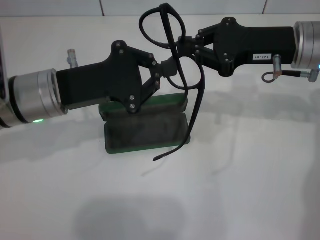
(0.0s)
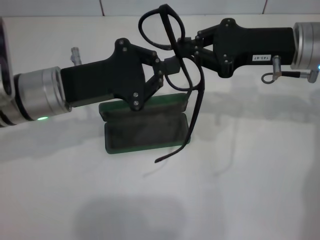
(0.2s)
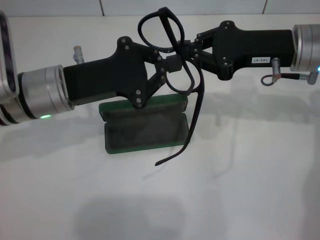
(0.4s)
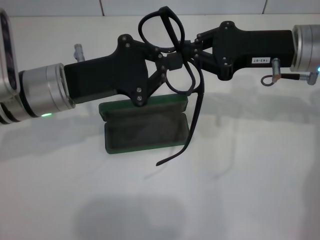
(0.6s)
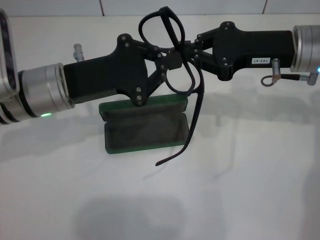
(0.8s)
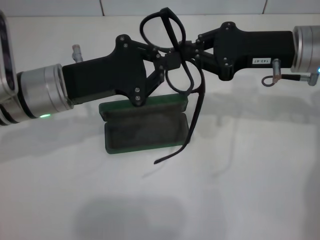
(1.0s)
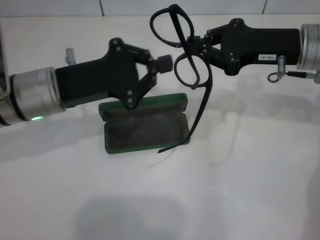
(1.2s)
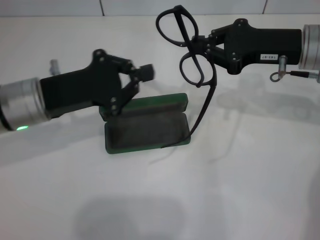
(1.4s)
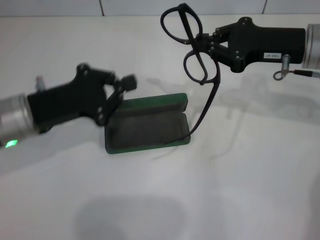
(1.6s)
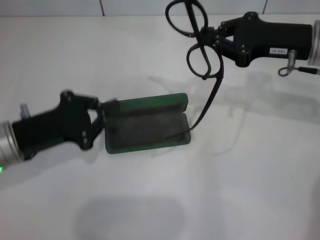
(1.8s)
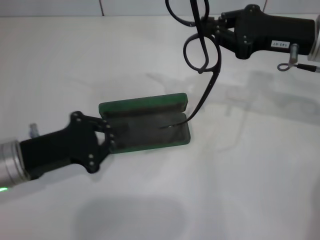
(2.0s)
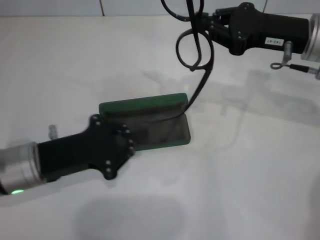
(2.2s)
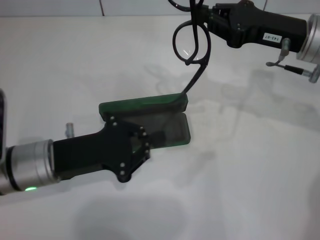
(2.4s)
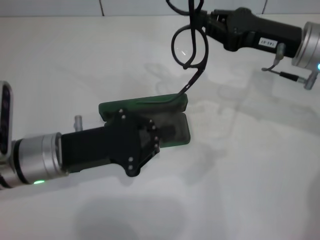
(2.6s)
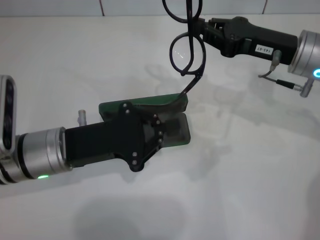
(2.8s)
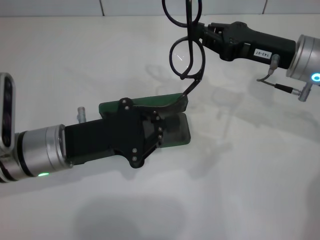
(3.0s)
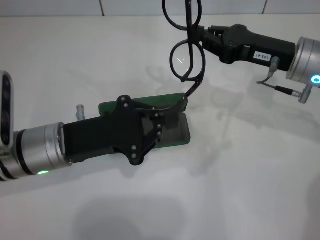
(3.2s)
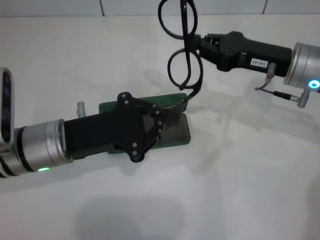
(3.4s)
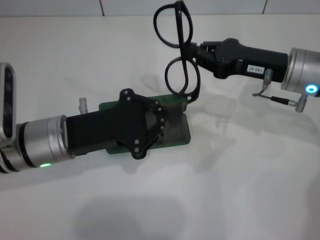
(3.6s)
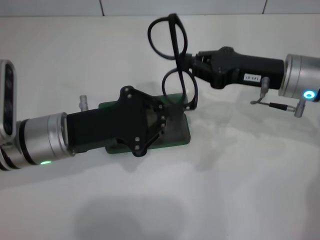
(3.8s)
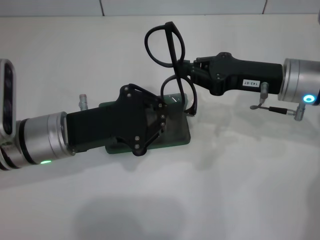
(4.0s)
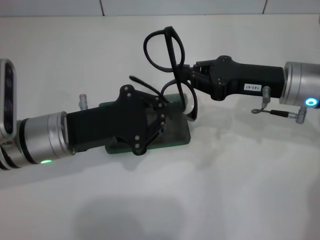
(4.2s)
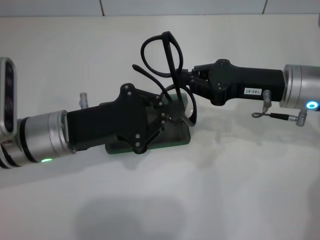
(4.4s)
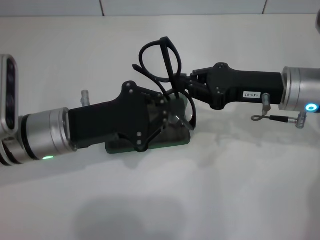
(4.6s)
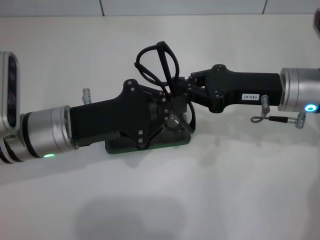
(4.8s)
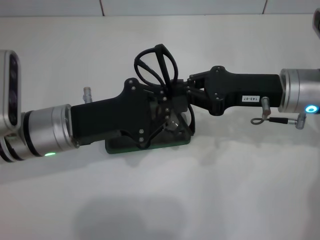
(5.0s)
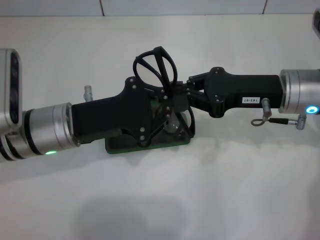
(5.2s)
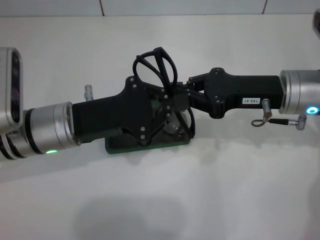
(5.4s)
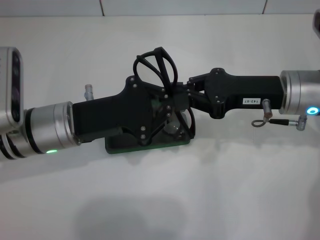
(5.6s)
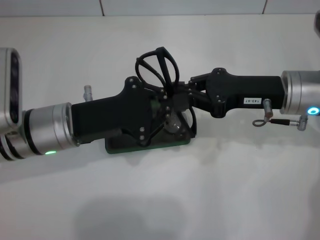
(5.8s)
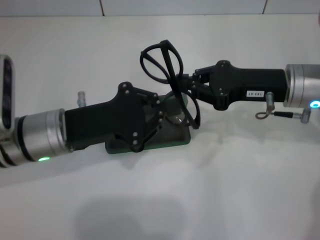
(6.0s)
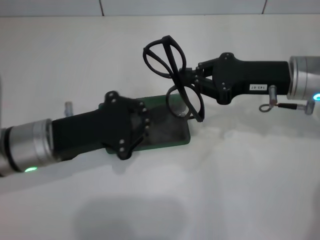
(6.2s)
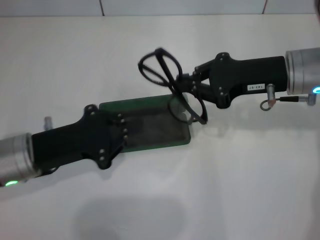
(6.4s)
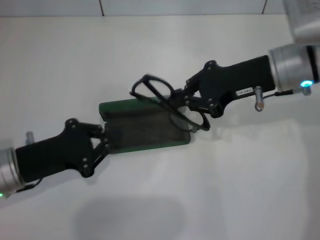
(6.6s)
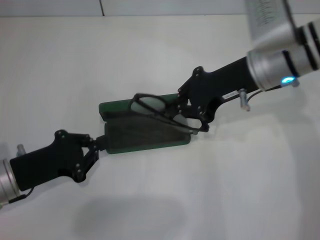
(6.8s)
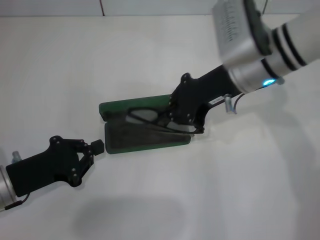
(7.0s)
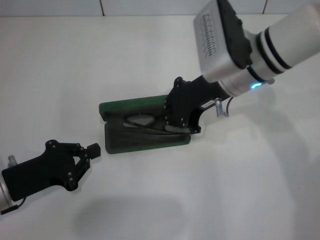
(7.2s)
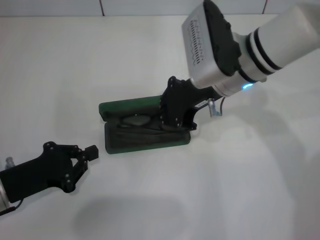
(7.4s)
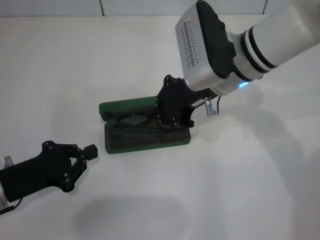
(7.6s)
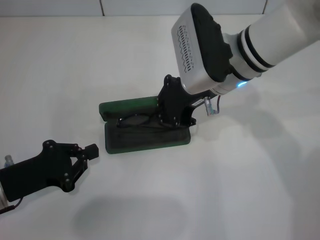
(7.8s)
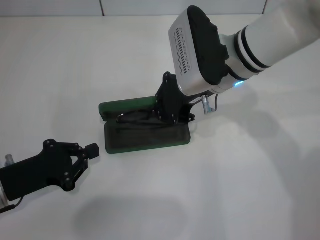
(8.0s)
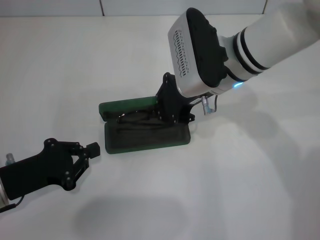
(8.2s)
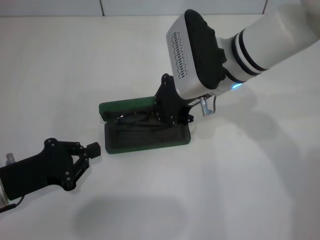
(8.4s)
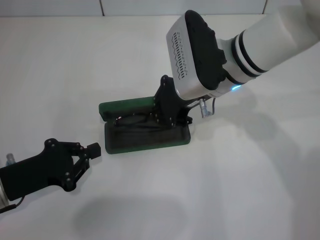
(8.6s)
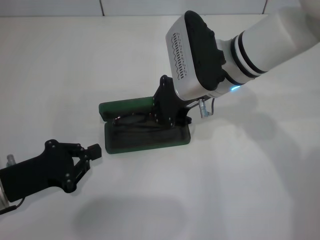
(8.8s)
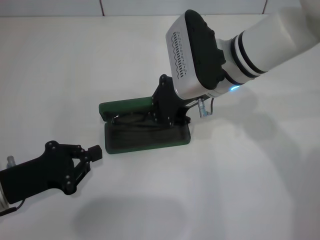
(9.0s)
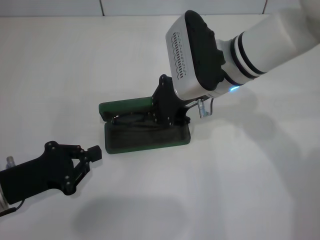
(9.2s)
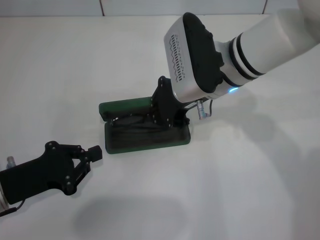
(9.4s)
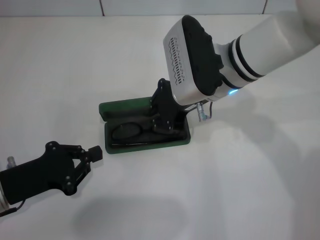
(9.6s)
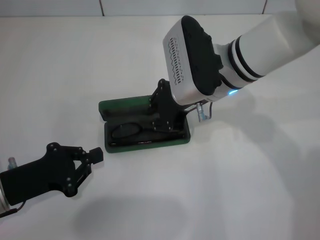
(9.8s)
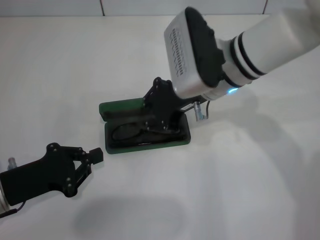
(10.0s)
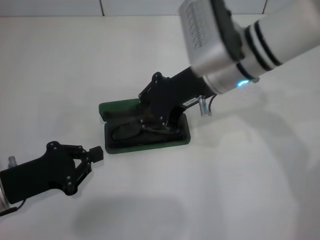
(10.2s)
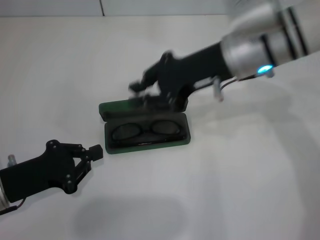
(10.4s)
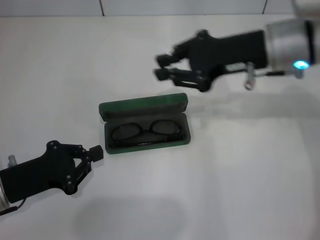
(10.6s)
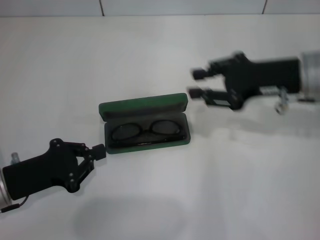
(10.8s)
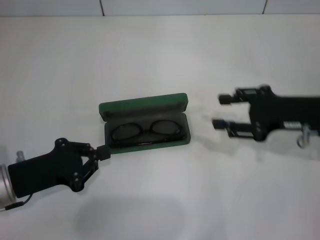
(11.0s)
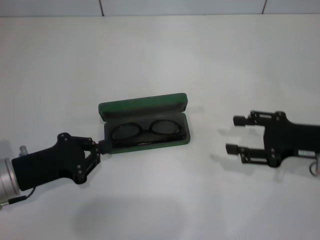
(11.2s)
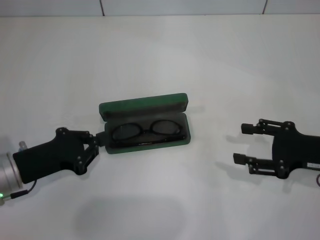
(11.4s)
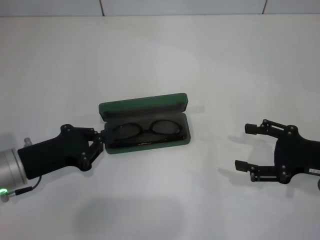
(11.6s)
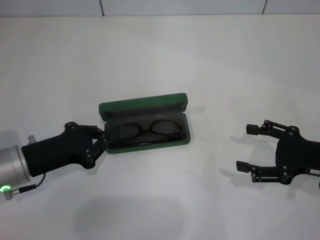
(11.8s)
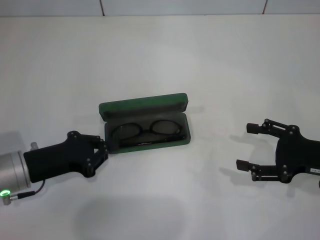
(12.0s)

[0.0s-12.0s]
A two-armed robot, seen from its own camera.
Step, 0.0s to 5.6s: Fold the frame with your left hand.
Step, 5.8s to 9.6s: Put the glasses into the case with your right hand.
0.0s to 1.6s: The left gripper ends up approximately 5 cm from where it was.
1.6s to 3.0s: The left gripper shifts by about 5 cm.
4.4s to 6.0s: The grippers stay close to where they were, moving slightly.
6.0s to 7.6s: The left gripper shifts about 15 cm to the left, backward and downward. The right gripper travels to the left by roughly 10 cm.
7.6s to 9.0s: The grippers make only small movements.
9.0s to 10.4s: The right gripper moves approximately 5 cm.
10.4s to 12.0s: The right gripper is displaced to the right, downward and backward by roughly 25 cm, and opens up.

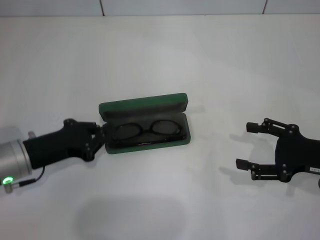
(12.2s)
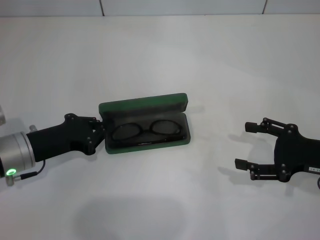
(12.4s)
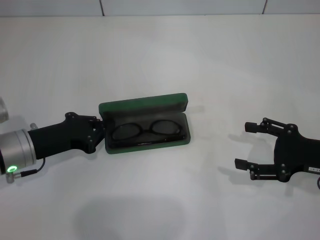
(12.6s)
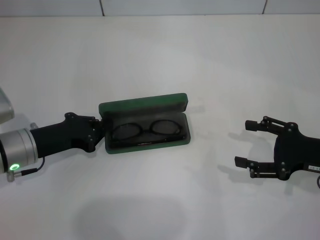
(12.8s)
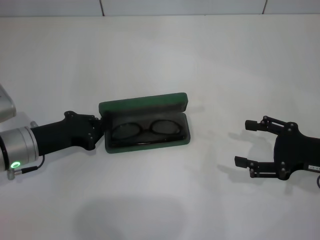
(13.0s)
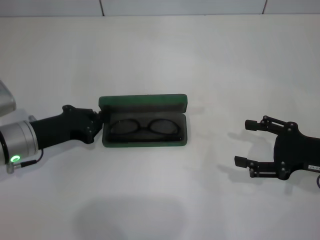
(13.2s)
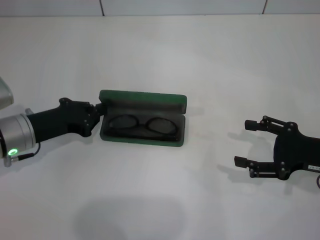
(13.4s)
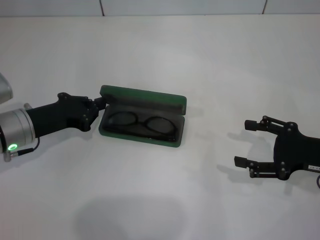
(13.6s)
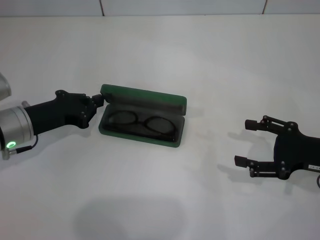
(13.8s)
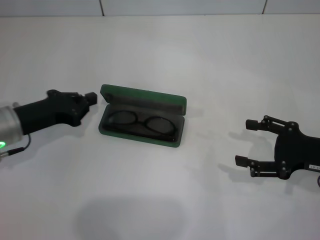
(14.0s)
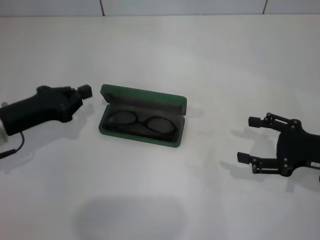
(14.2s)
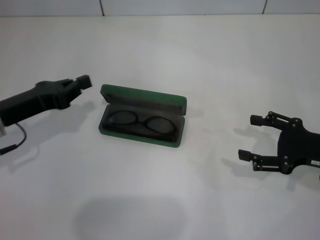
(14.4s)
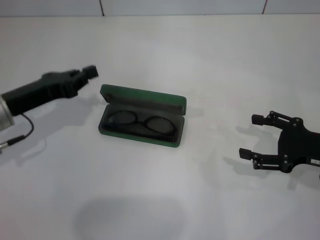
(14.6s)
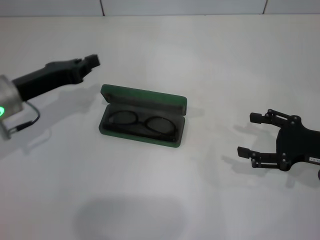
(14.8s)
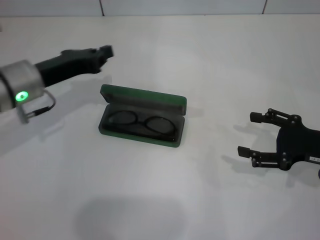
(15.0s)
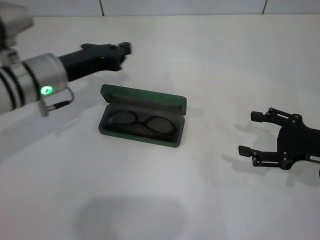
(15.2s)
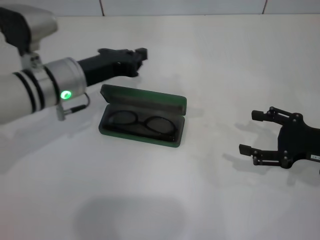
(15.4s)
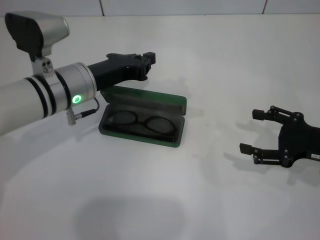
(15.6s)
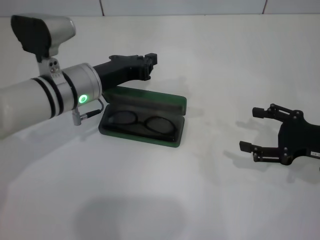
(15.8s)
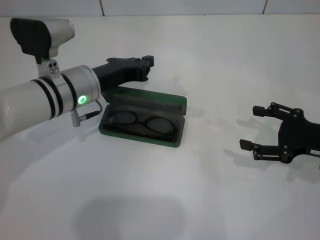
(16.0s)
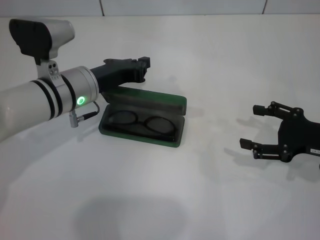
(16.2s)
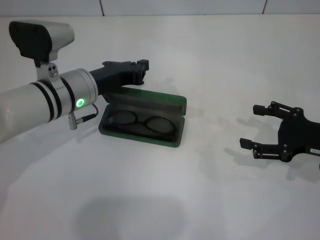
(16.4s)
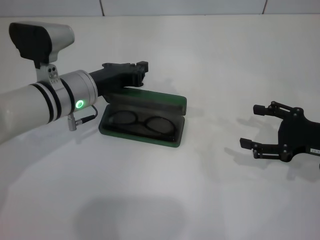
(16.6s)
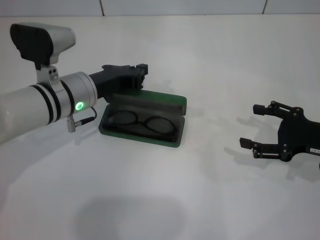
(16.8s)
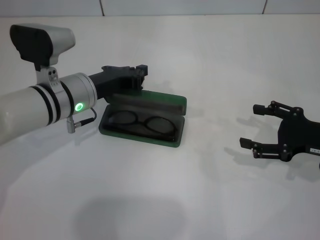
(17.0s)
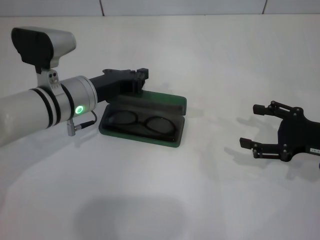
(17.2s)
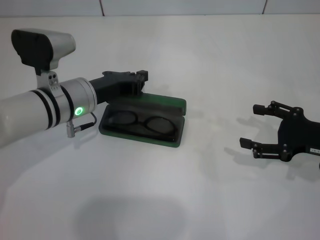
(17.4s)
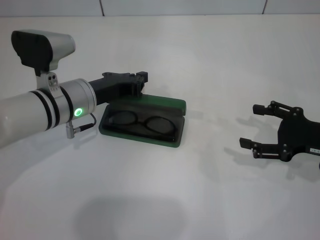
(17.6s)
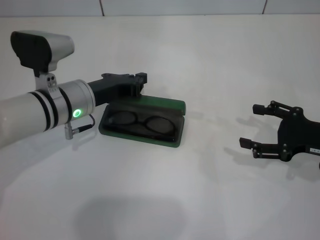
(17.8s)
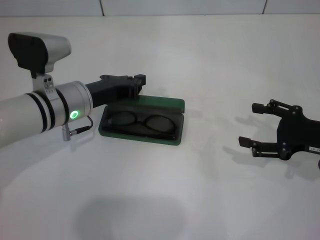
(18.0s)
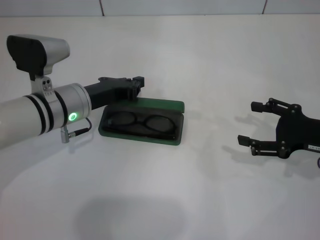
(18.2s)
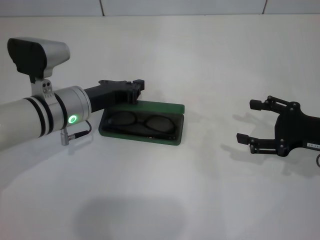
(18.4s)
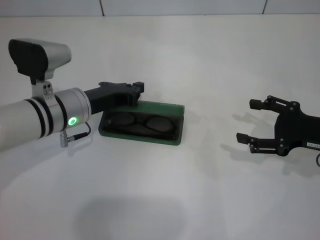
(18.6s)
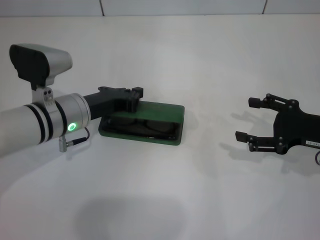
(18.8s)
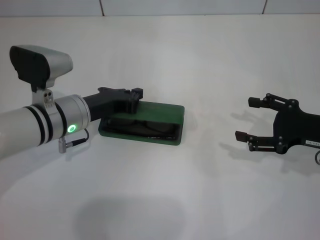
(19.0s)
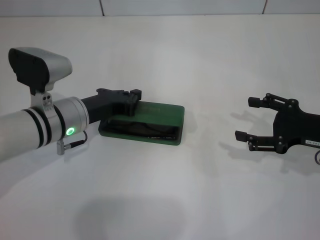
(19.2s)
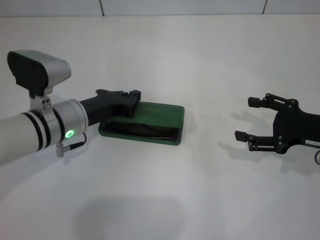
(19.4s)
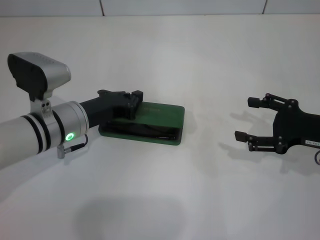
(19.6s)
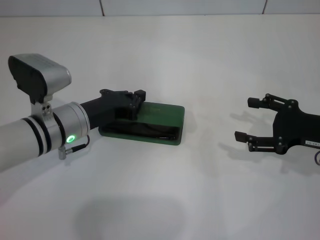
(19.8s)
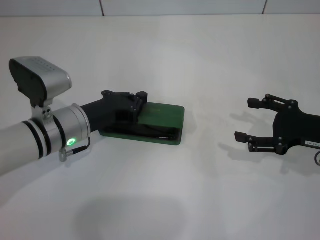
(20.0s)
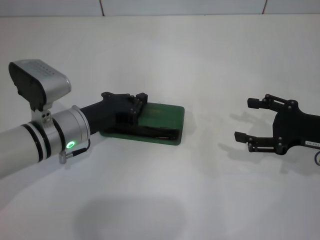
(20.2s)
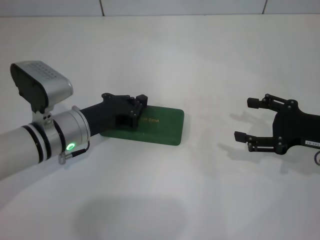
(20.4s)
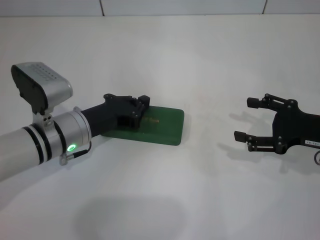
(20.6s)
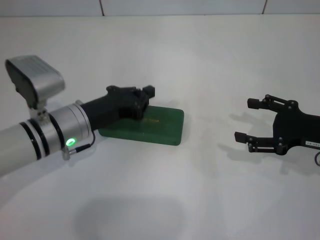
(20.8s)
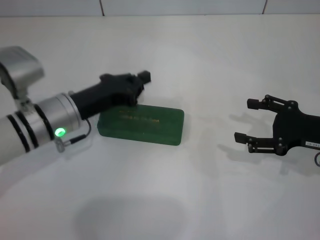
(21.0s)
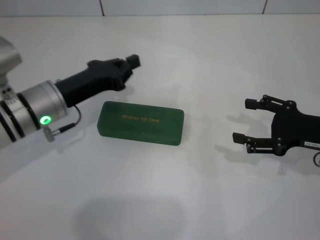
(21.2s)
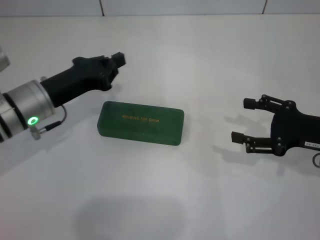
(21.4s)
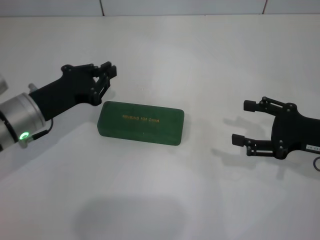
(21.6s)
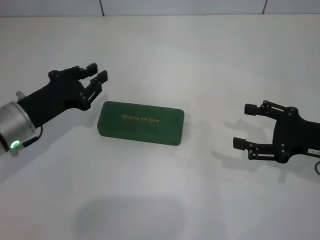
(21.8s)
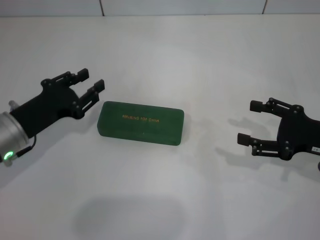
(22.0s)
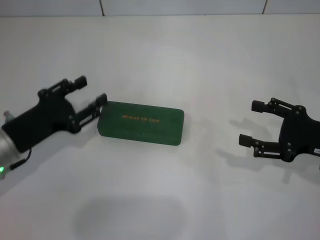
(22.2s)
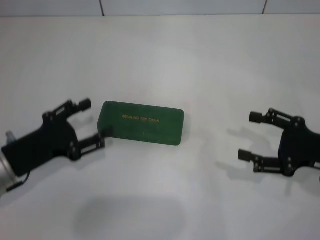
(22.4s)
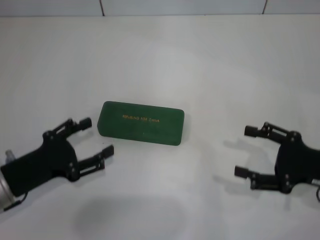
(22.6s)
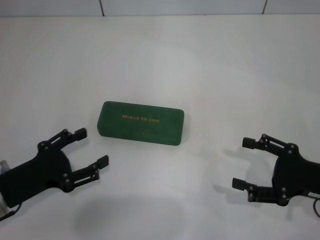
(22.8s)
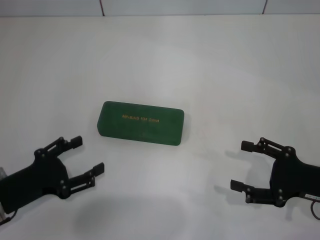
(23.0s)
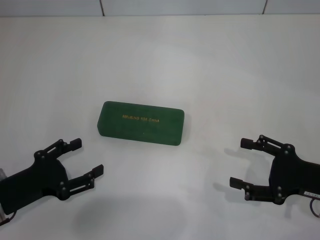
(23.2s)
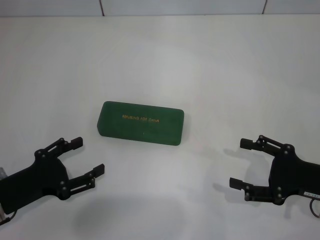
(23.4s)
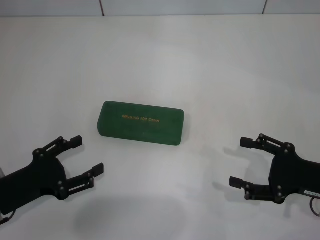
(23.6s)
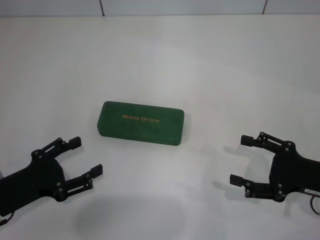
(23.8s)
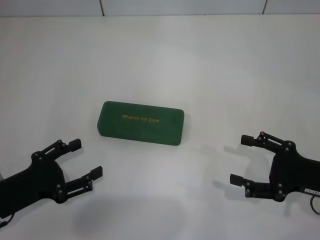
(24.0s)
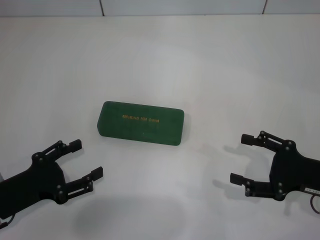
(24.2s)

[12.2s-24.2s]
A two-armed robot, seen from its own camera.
Step, 12.2s to 20.4s: Close the glasses case with your left hand.
12.2s to 13.8s: The left gripper shifts about 5 cm forward.
13.8s to 15.2s: The left gripper moves upward and to the right, roughly 10 cm.
15.2s to 18.2s: The grippers move only a little.
18.2s to 19.8s: The grippers stay close to where they were, moving slightly.
19.8s to 21.2s: There are only small adjustments of the grippers.
21.2s to 22.6s: The right gripper ends up approximately 5 cm from where it was, while the left gripper goes about 15 cm backward and to the left, and opens up.
22.6s to 24.2s: The grippers stay close to where they were, moving slightly.
